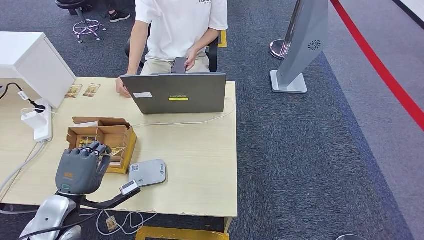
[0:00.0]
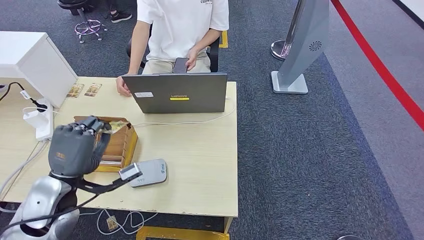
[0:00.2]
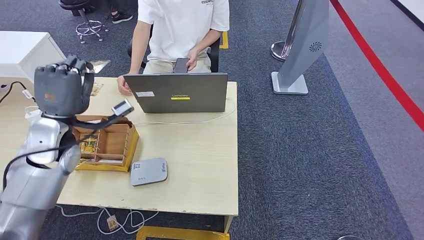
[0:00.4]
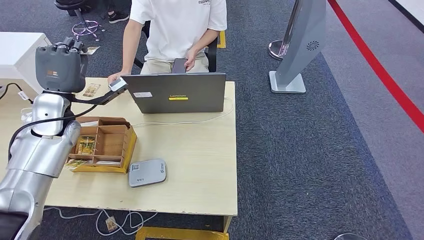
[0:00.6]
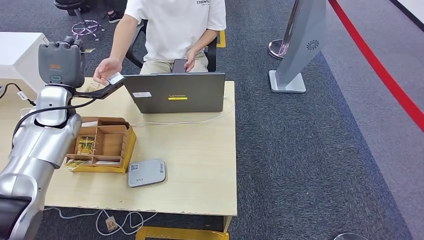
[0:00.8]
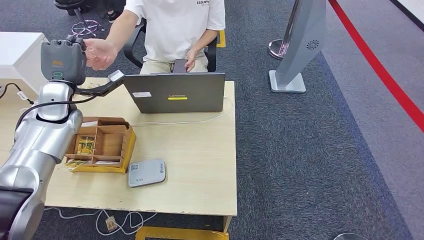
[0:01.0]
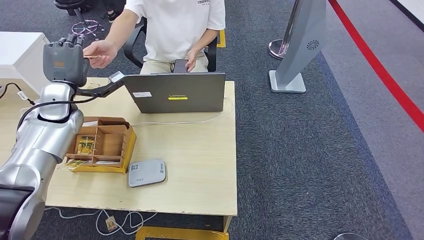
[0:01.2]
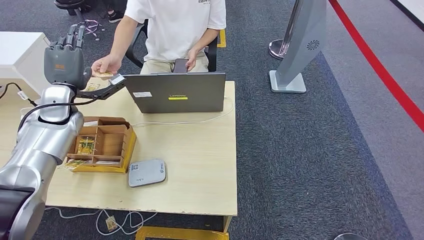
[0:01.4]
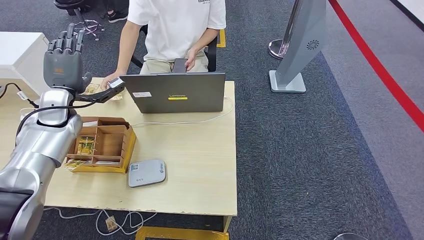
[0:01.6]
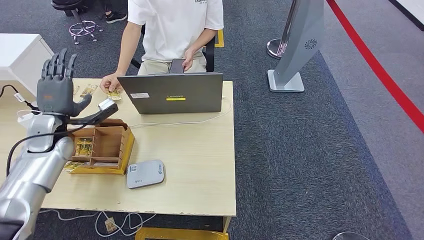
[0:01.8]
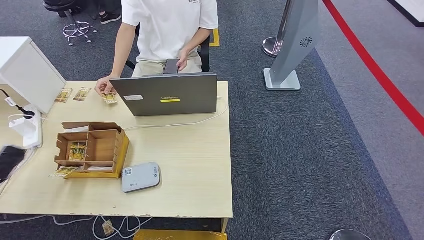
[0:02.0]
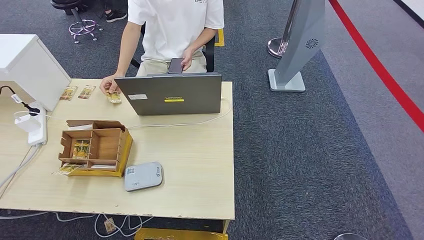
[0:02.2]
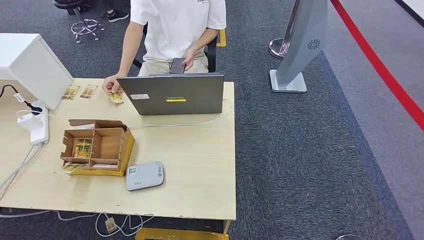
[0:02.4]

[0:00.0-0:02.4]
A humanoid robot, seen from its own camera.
Step, 0:00.0 to 0:02.4: Hand the room key to the person.
0:00.0 to 0:01.2: The left hand heads forward and upward, covering about 25 cm.
0:01.2 to 0:02.4: The left hand heads backward and to the left, covering approximately 60 cm.

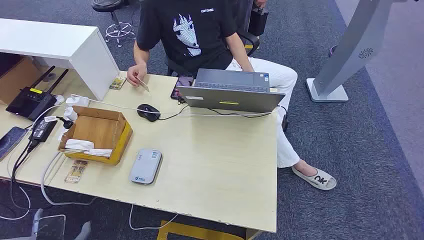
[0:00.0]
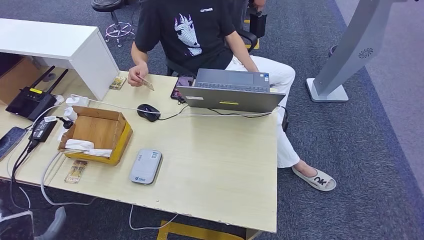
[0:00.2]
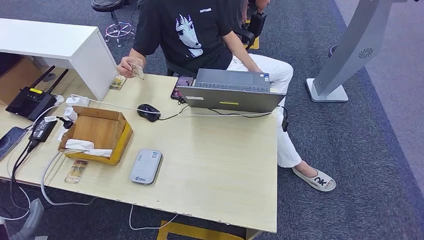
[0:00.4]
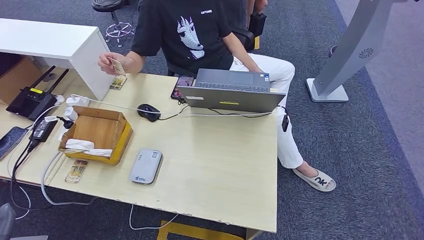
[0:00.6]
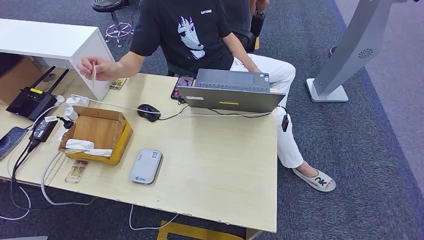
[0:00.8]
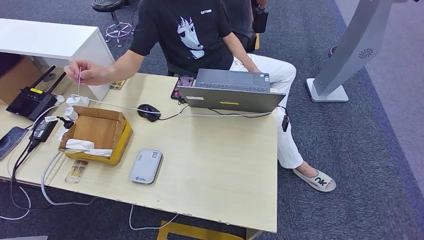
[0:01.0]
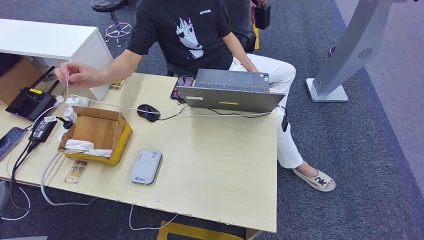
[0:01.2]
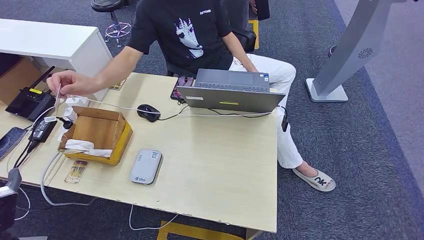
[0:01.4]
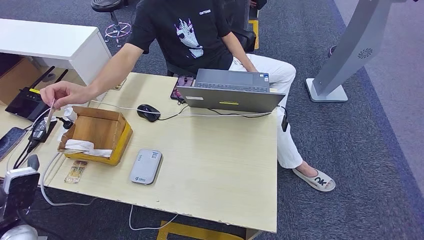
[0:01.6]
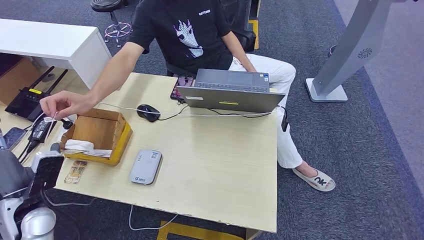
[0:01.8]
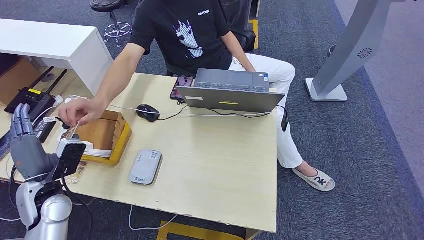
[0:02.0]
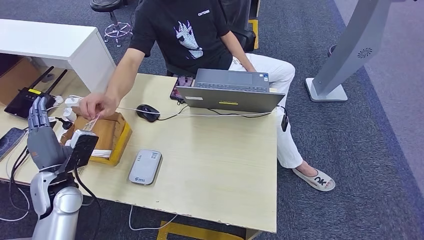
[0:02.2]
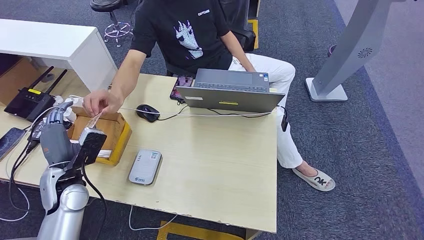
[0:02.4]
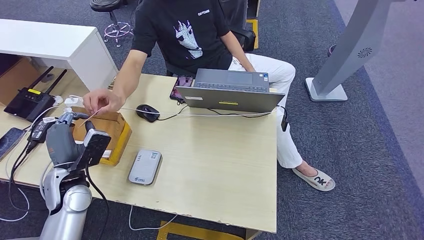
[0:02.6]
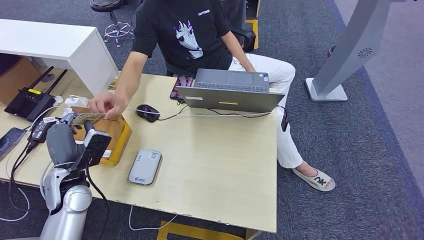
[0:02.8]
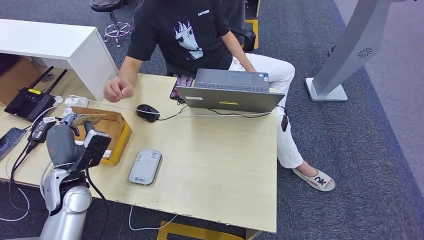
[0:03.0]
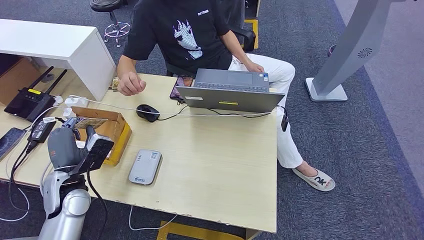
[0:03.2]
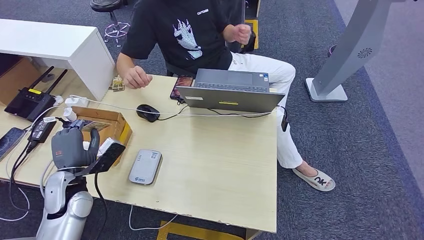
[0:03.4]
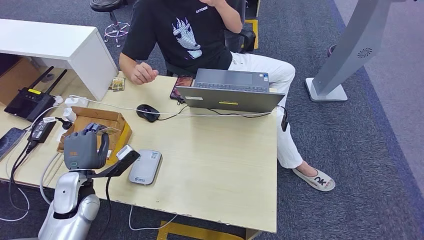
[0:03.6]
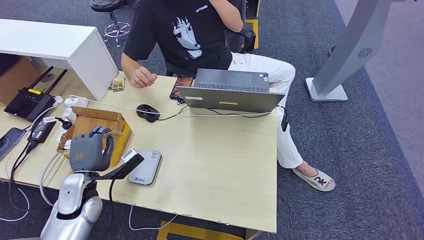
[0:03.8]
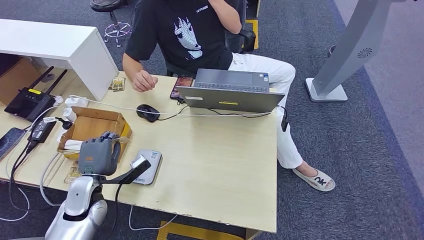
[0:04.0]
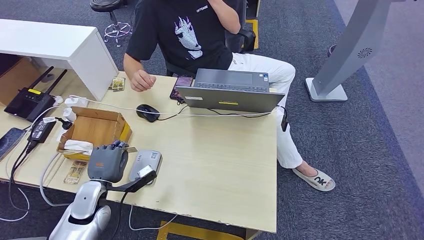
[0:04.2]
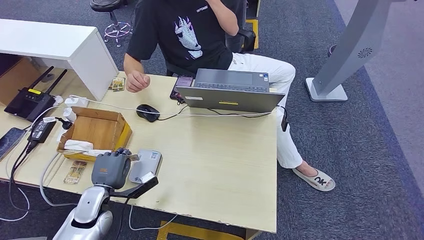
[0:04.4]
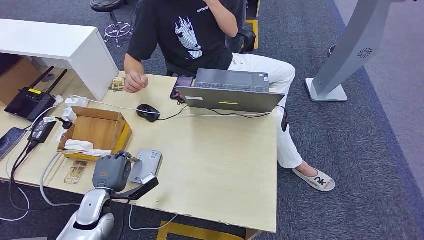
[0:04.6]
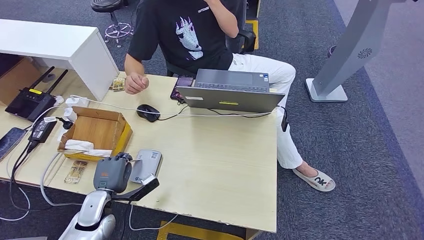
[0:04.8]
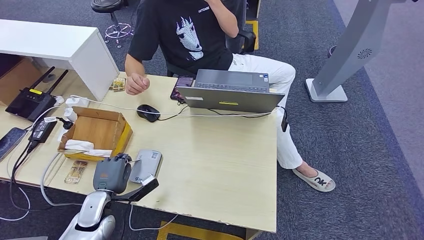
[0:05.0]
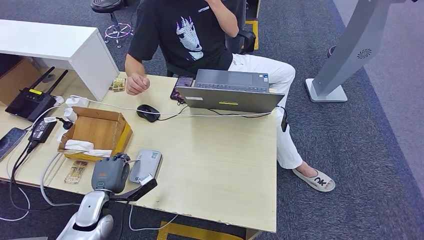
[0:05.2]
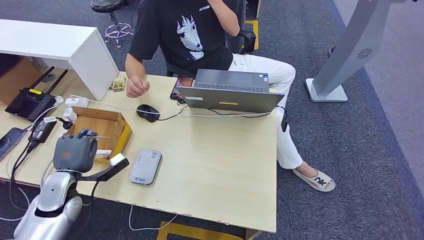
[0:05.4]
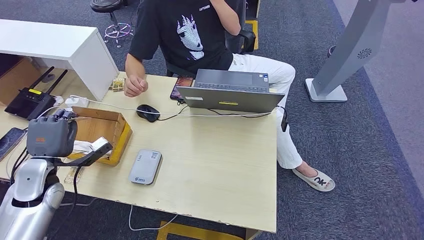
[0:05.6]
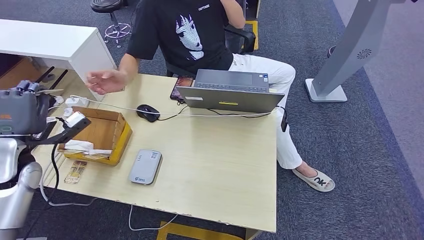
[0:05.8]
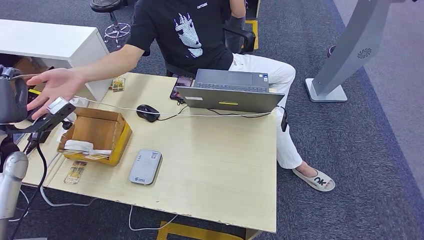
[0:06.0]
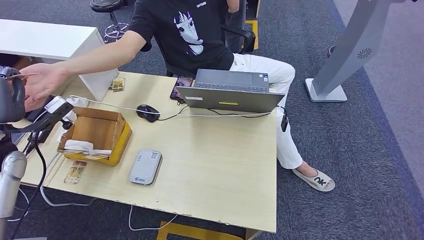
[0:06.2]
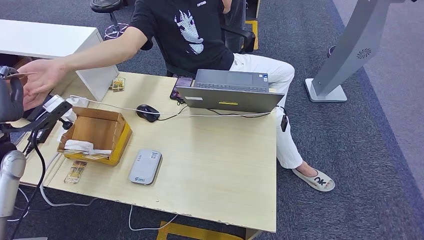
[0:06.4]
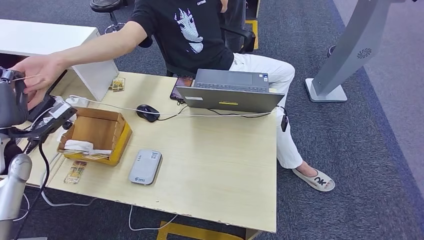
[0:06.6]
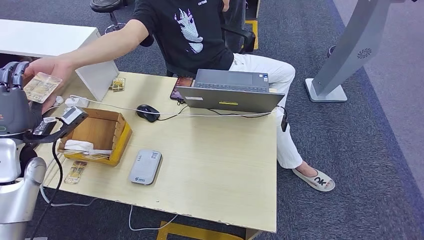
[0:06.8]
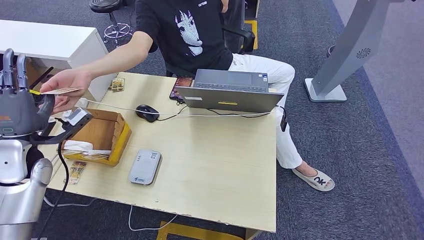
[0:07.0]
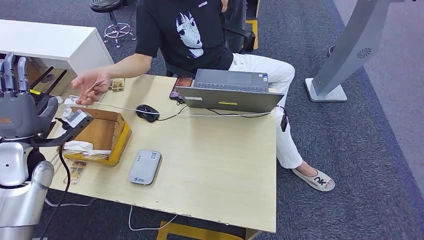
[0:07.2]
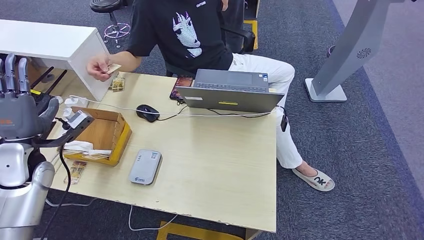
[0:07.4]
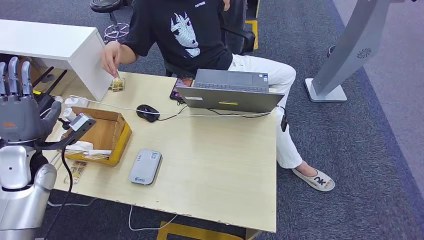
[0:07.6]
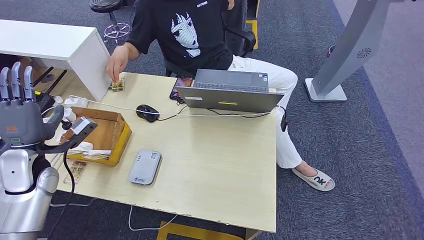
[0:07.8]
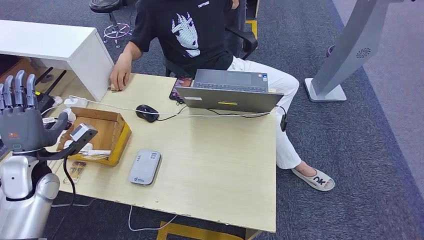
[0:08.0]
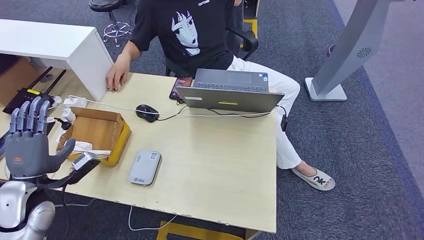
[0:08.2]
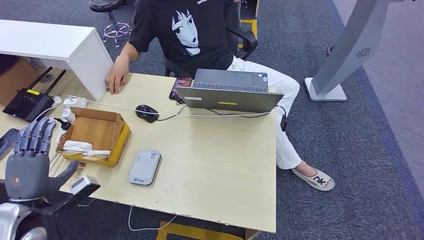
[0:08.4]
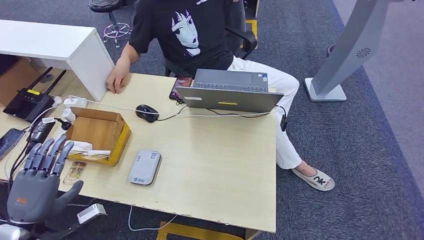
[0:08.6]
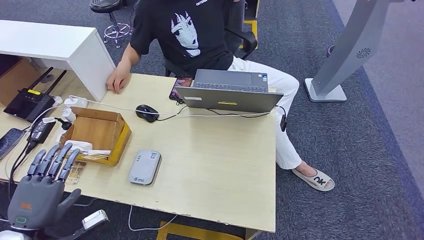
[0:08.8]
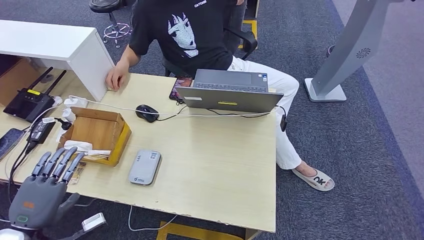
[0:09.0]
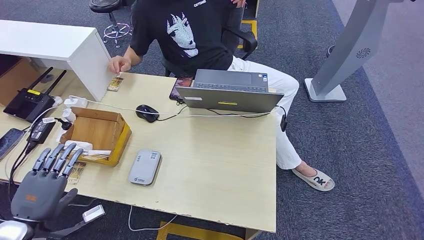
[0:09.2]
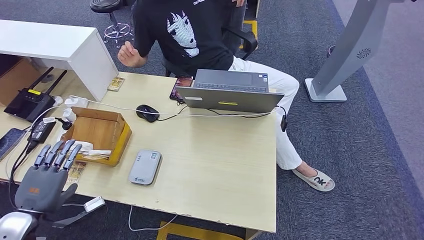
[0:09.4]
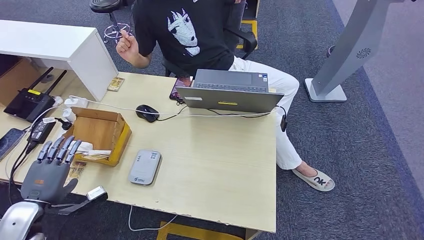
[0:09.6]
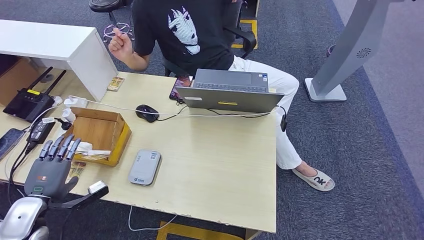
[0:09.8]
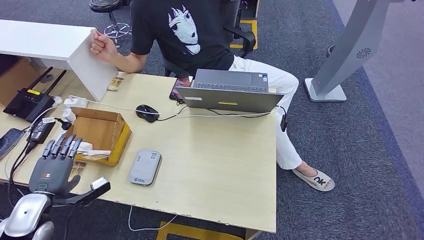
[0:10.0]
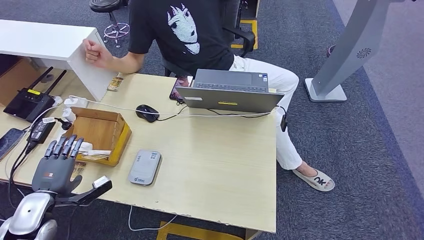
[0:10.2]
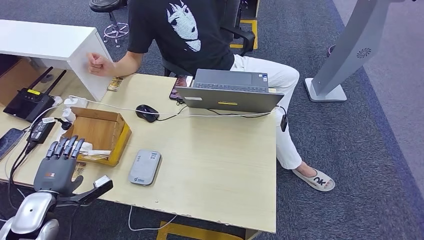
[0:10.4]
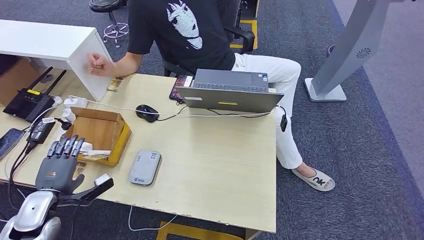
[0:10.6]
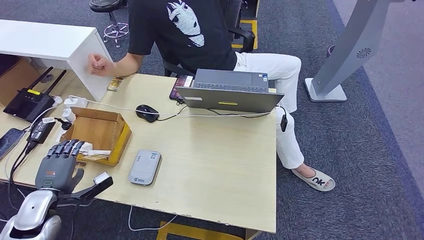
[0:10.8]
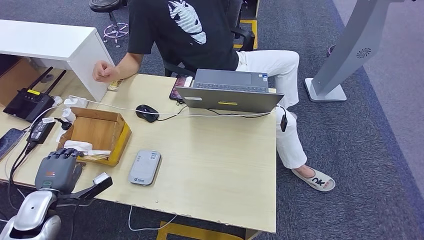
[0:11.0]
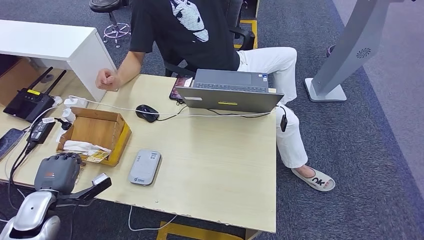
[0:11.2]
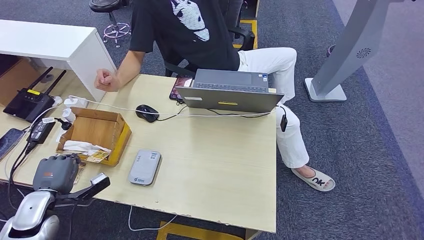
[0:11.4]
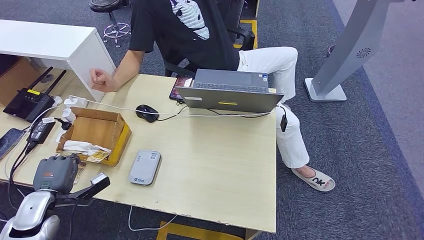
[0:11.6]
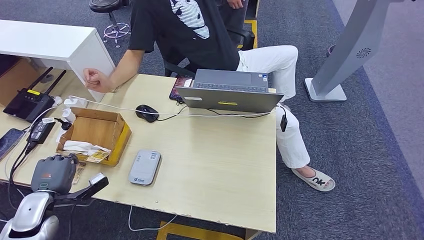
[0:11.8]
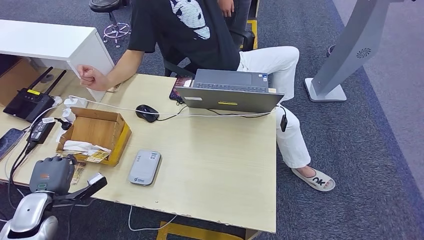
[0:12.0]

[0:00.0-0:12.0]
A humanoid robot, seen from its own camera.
Step, 0:00.0 to 0:03.4: Take the ID card from the person's hand.
Step, 0:03.6 to 0:05.4: Place the ID card on the card reader.
Step, 0:05.6 to 0:07.2: Hand the ID card to the person.
0:01.6 to 0:03.0: The left hand goes about 15 cm forward and to the right.
0:03.0 to 0:04.4: The left hand shifts about 10 cm downward.
0:04.4 to 0:06.0: The left hand is displaced upward and to the left by some 25 cm.
0:06.0 to 0:07.6: The left hand ends up about 5 cm from where it was.
0:07.6 to 0:09.0: The left hand shifts about 20 cm backward.
0:09.0 to 0:10.4: The left hand is displaced forward and downward by approximately 10 cm.
0:10.4 to 0:12.0: There are only small adjustments of the hands.

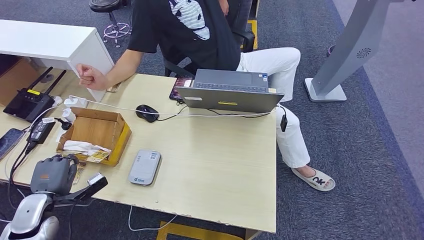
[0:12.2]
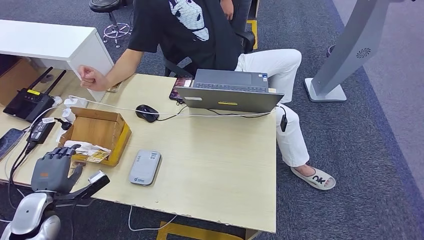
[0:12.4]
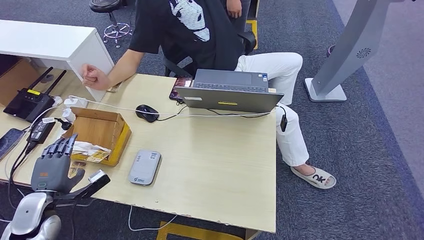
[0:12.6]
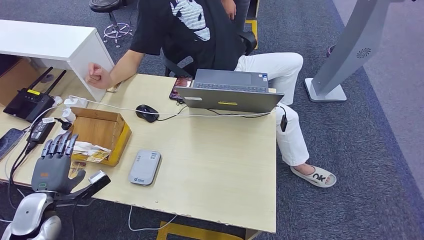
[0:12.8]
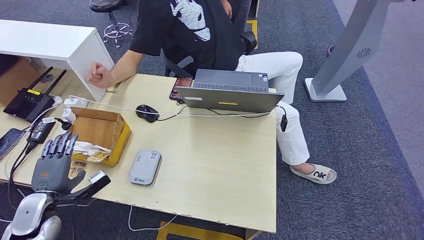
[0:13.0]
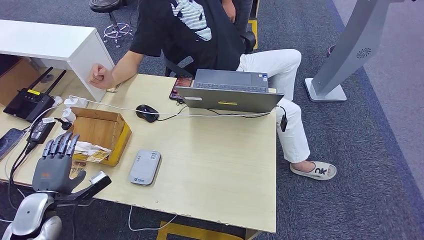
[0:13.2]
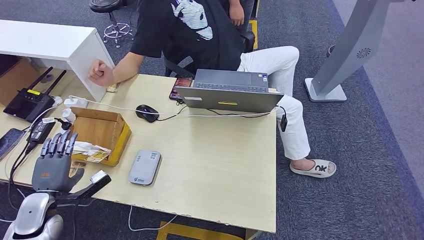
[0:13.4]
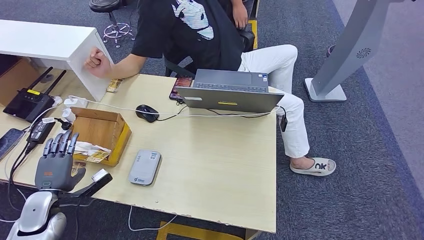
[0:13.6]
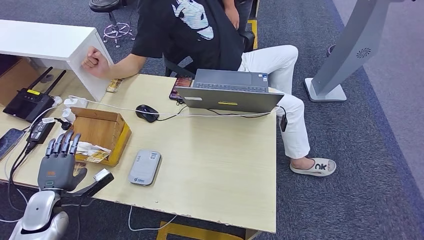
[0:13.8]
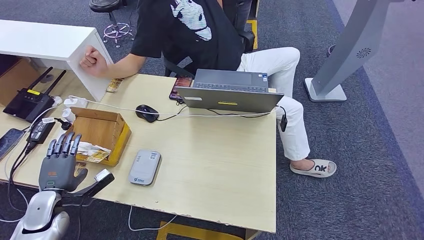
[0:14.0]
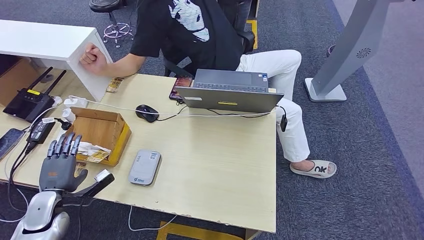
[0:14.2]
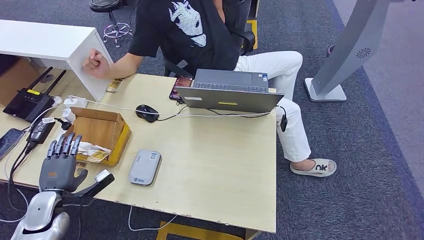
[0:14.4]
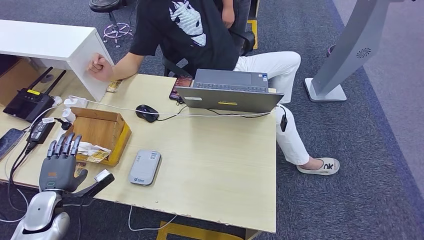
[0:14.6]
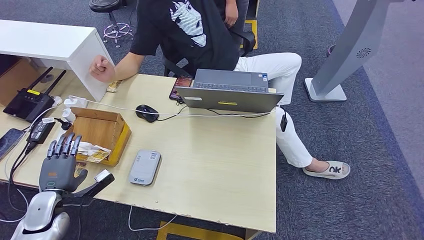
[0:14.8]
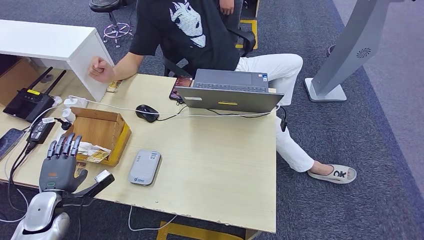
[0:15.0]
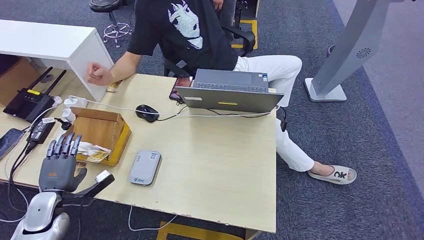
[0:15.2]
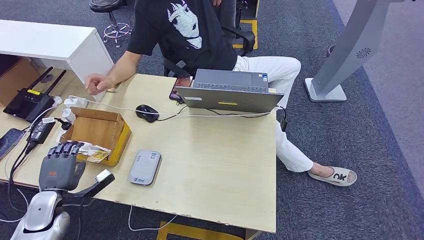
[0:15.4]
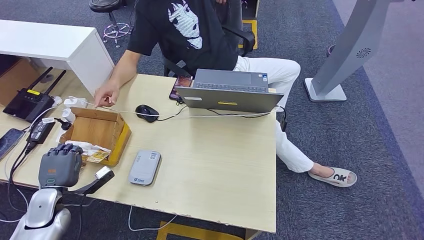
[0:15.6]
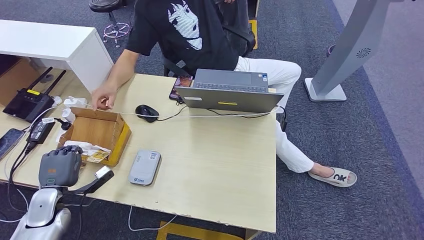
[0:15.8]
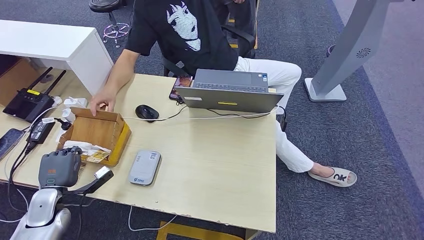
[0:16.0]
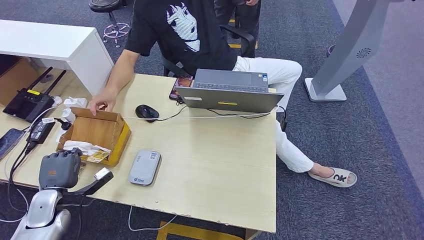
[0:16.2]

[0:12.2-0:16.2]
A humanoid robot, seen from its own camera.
0:12.2 to 0:13.6: The hands make only small movements.
0:13.6 to 0:14.8: Neither hand changes place.
0:14.8 to 0:16.2: The hands stay close to where they were, moving slightly.
